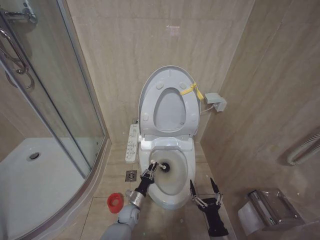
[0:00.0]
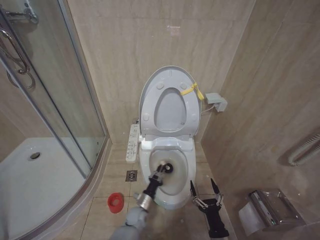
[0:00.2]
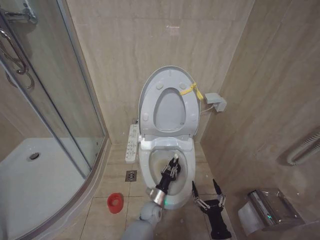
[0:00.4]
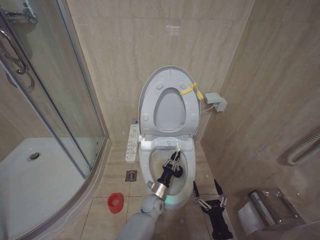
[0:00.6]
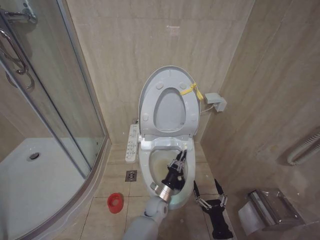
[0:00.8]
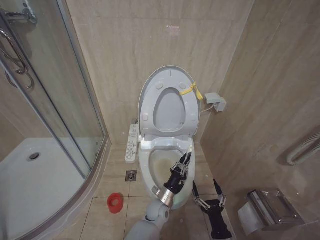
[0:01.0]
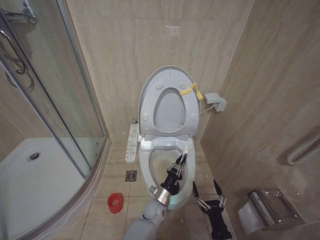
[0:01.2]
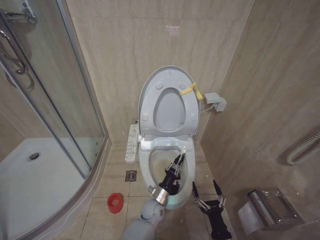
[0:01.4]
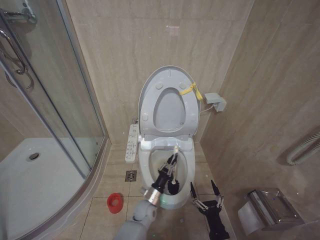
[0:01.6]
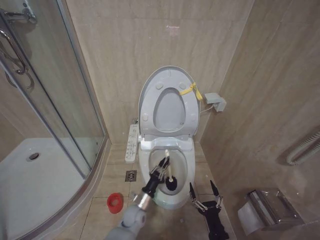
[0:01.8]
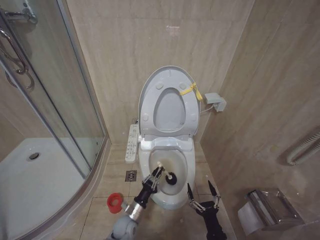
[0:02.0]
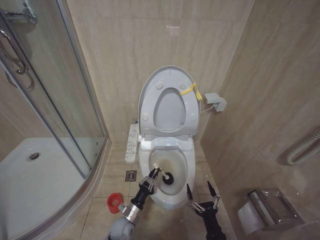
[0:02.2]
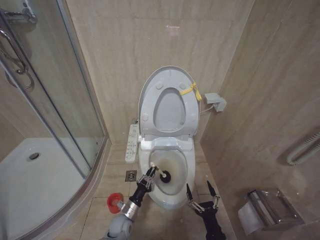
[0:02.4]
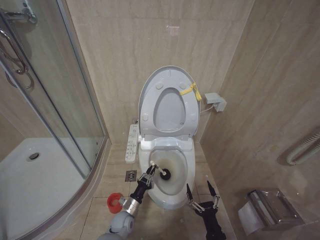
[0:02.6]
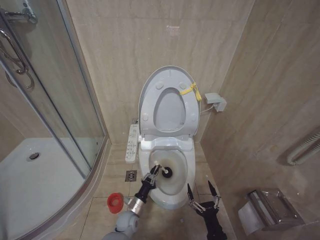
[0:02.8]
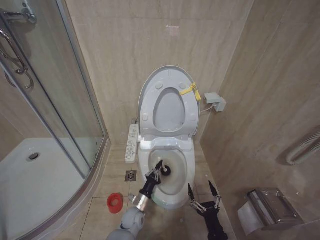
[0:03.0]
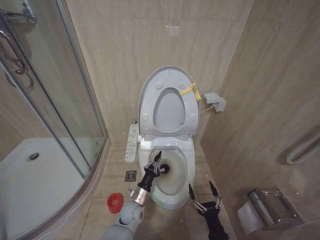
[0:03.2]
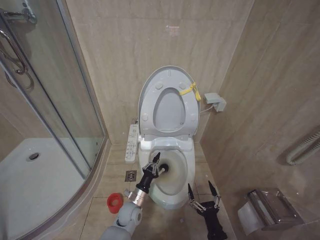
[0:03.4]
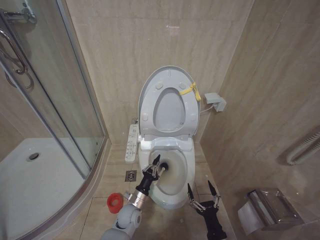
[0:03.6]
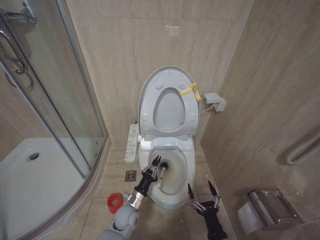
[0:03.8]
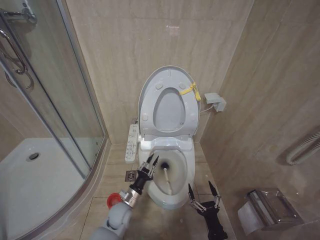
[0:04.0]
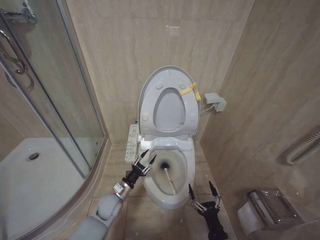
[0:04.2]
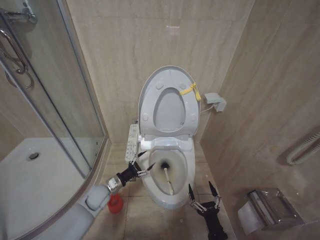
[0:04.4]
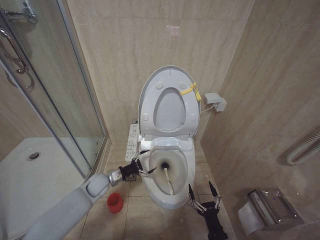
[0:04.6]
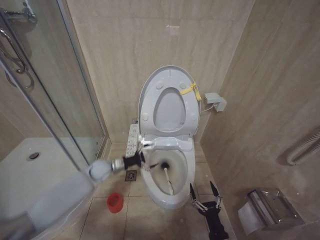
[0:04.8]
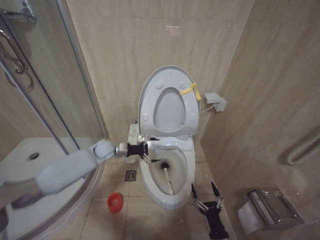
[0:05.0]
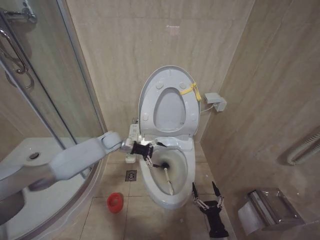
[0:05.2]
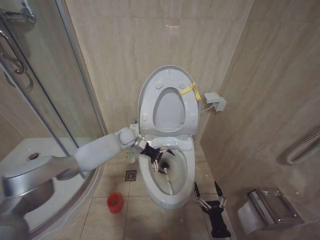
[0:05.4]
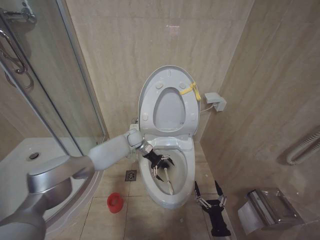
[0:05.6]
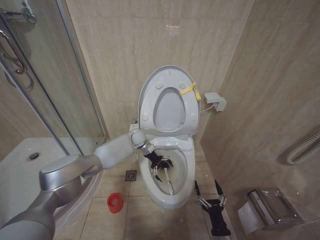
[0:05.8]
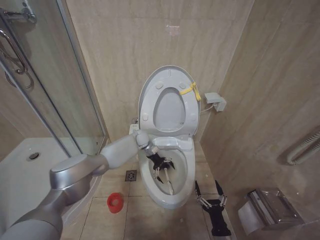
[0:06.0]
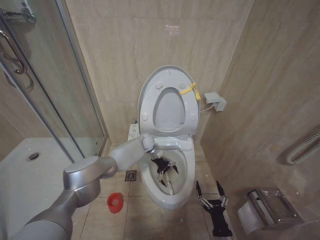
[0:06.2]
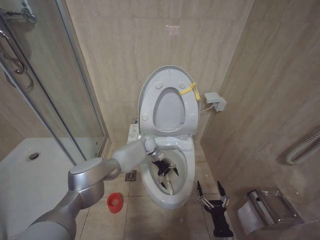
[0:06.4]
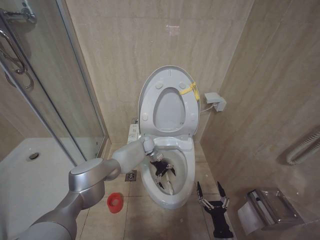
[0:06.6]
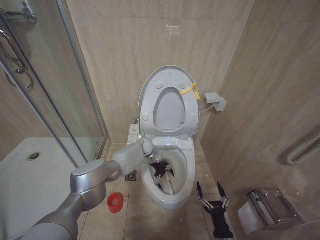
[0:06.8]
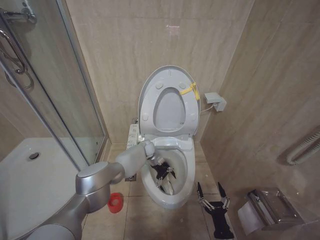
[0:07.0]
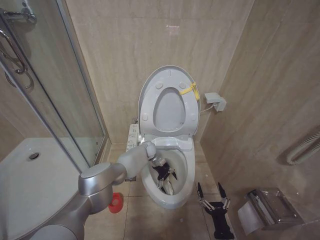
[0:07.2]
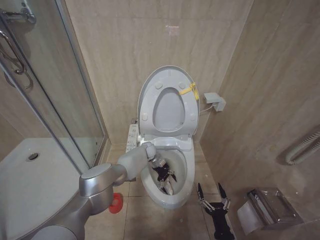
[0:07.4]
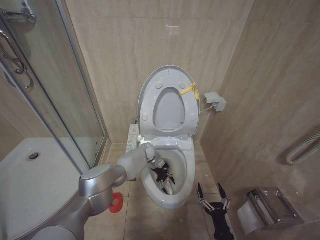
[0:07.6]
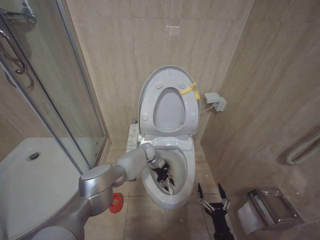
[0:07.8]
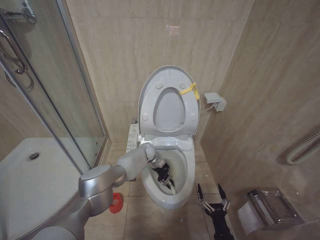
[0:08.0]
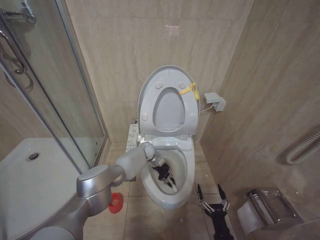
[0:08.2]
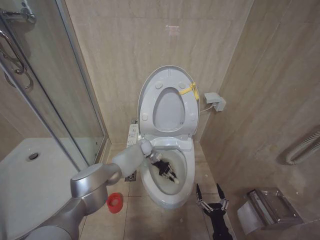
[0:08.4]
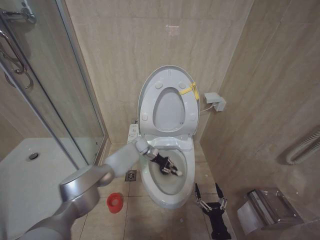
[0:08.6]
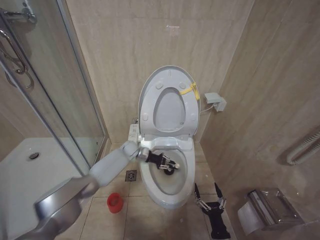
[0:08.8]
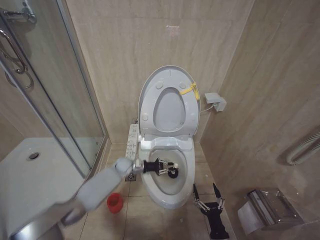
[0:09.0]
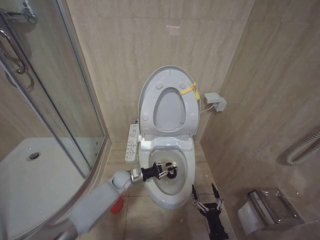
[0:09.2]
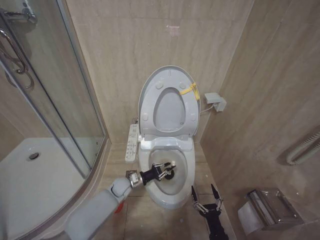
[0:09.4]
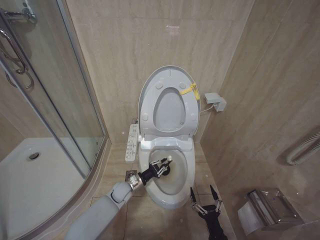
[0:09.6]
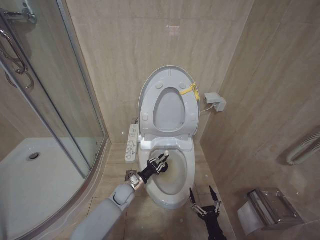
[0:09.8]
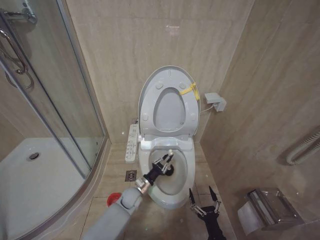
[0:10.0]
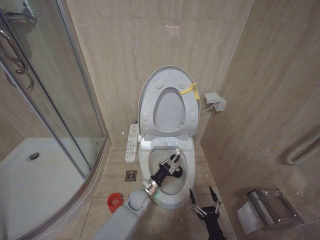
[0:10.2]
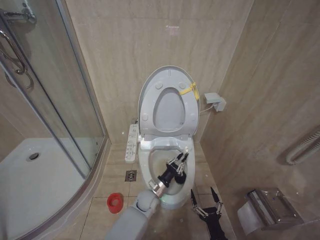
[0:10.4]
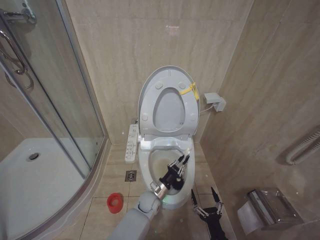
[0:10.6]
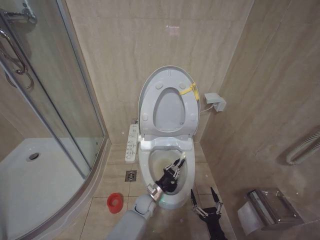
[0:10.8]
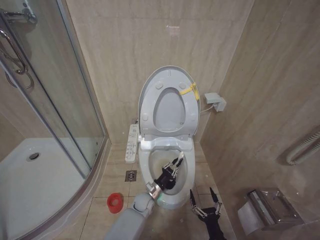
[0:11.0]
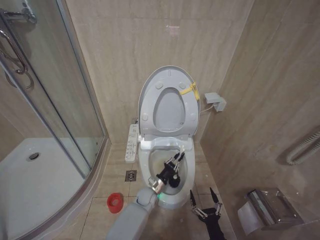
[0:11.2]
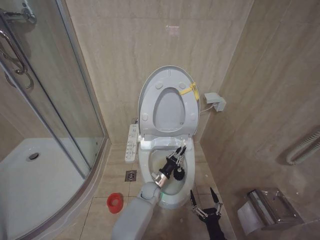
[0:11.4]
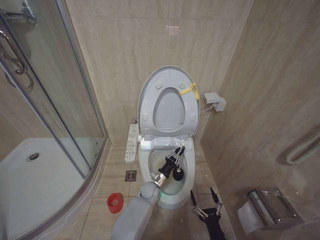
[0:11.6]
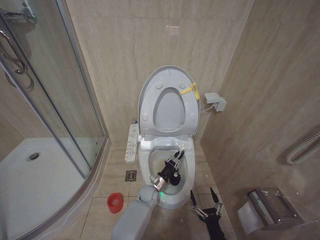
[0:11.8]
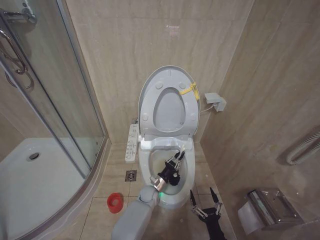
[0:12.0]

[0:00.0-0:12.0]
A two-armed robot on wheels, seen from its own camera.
Task of the whole recording: Open the toilet lid, clean the toilet bowl with a toilet brush, close the toilet lid, and flush.
0:00.0 to 0:01.6: The left gripper travels to the right and upward by approximately 10 cm.
0:01.6 to 0:03.0: The left gripper travels to the left by about 10 cm.
0:03.0 to 0:04.4: The left gripper is displaced upward and to the left by roughly 15 cm.
0:04.4 to 0:06.0: The left gripper heads forward, to the right and upward, covering about 30 cm, and opens its fingers.
0:06.0 to 0:07.6: The left gripper moves downward, roughly 10 cm.
0:07.6 to 0:09.0: The left gripper goes about 10 cm to the left, and closes its fingers.
0:09.0 to 0:10.4: The left gripper goes roughly 20 cm backward, to the right and downward.
0:10.4 to 0:12.0: The left gripper moves about 5 cm.

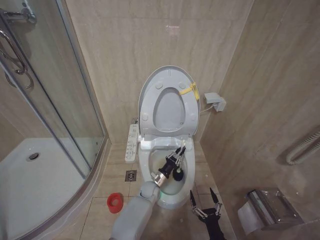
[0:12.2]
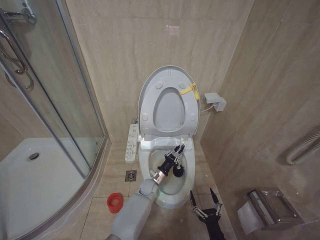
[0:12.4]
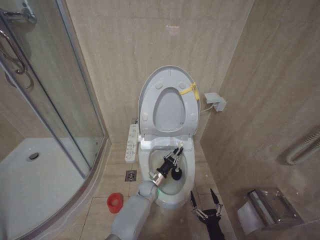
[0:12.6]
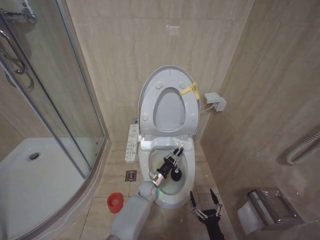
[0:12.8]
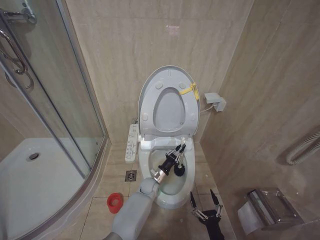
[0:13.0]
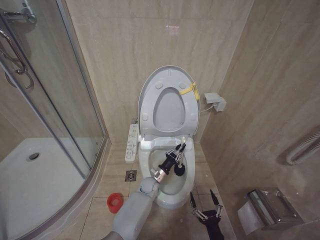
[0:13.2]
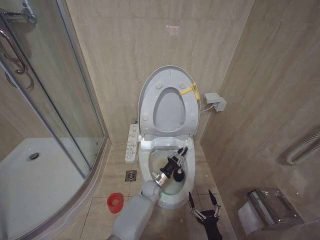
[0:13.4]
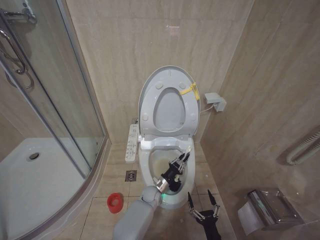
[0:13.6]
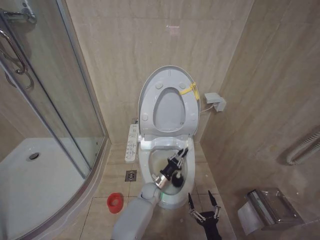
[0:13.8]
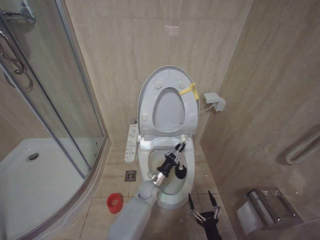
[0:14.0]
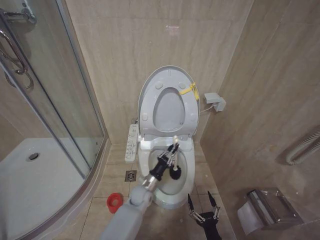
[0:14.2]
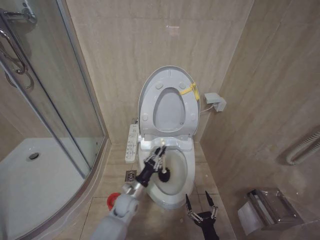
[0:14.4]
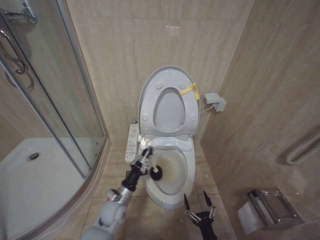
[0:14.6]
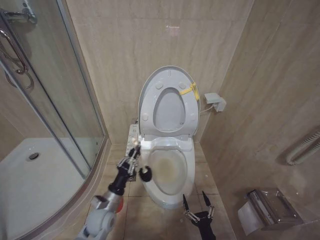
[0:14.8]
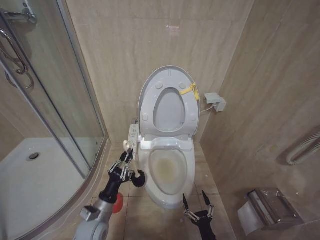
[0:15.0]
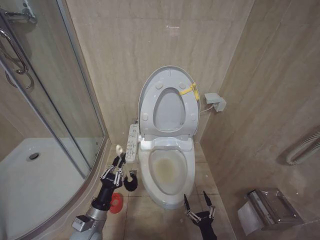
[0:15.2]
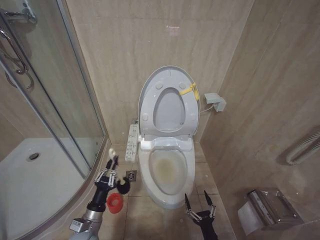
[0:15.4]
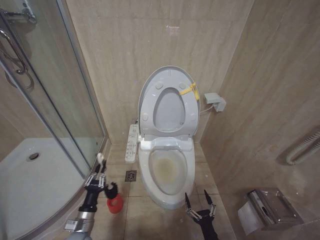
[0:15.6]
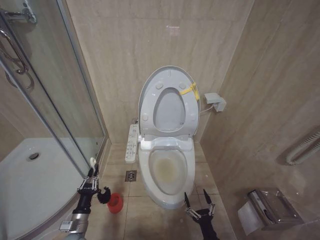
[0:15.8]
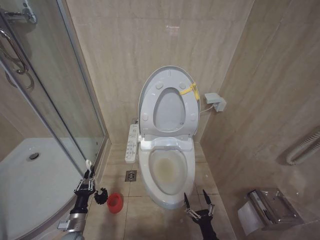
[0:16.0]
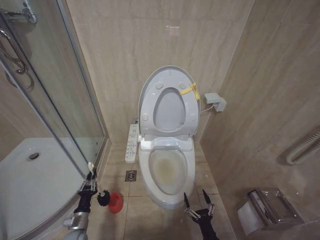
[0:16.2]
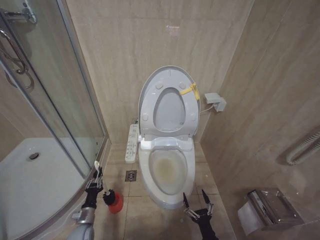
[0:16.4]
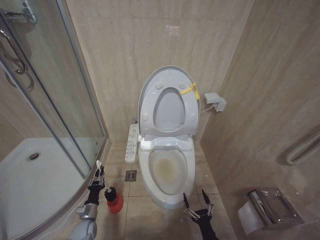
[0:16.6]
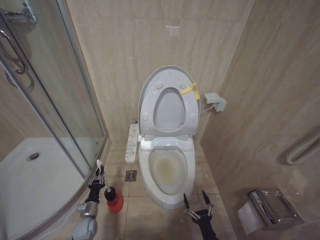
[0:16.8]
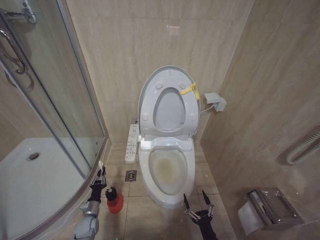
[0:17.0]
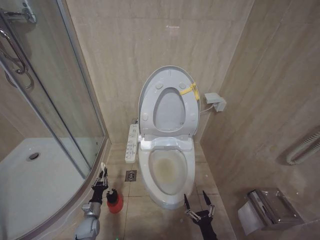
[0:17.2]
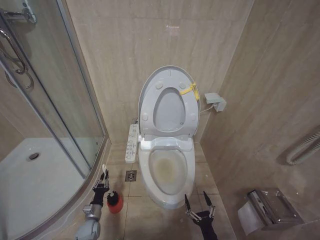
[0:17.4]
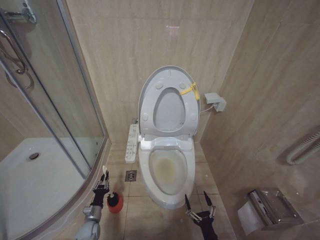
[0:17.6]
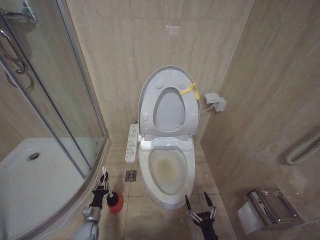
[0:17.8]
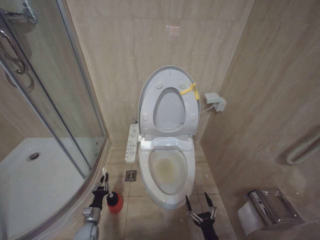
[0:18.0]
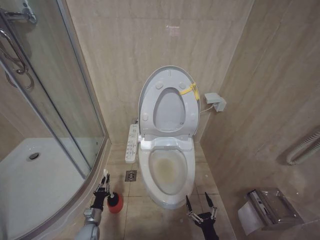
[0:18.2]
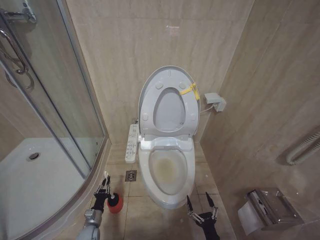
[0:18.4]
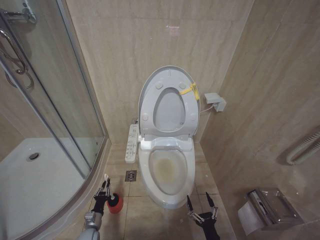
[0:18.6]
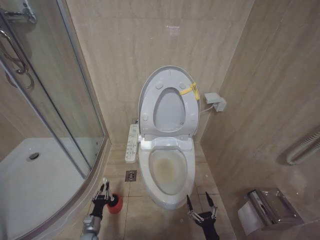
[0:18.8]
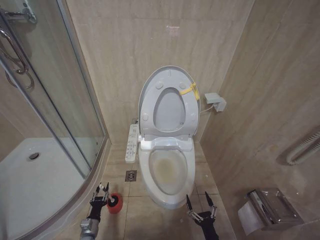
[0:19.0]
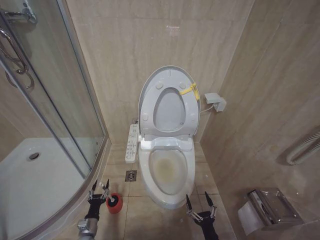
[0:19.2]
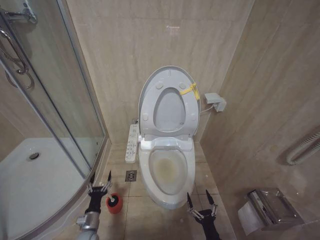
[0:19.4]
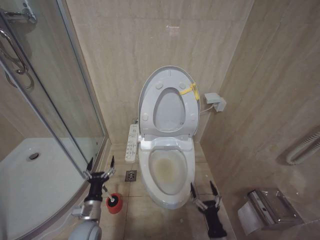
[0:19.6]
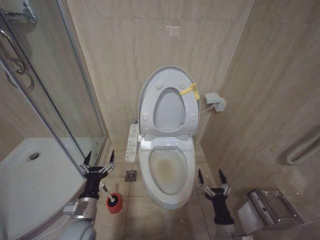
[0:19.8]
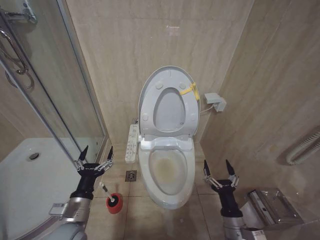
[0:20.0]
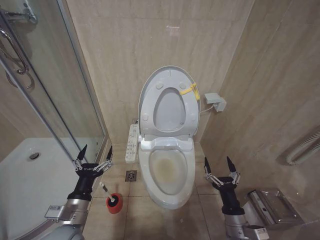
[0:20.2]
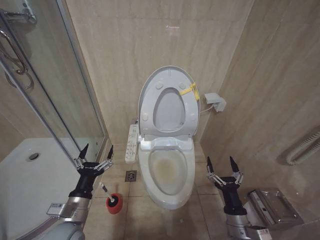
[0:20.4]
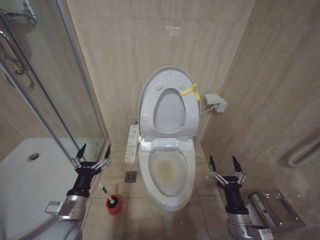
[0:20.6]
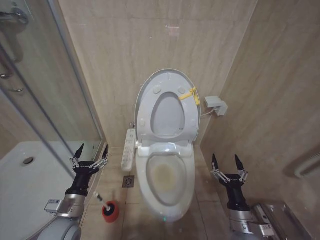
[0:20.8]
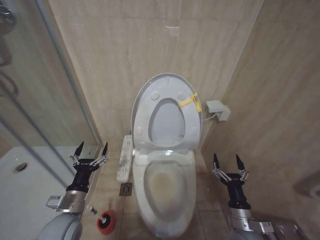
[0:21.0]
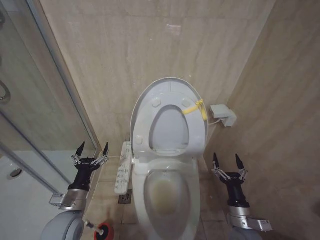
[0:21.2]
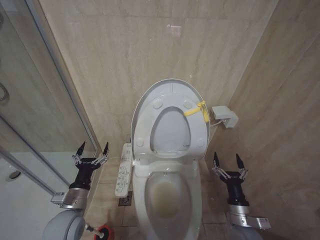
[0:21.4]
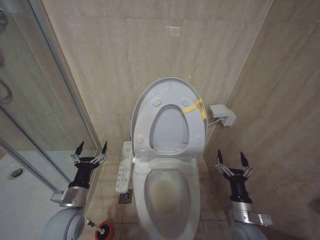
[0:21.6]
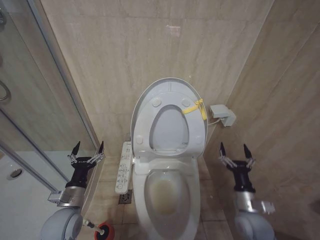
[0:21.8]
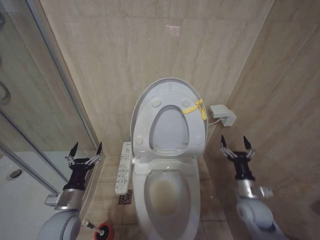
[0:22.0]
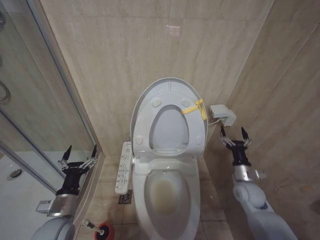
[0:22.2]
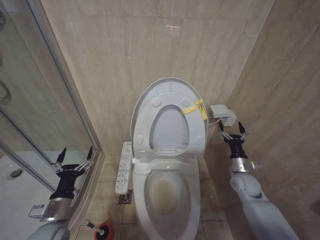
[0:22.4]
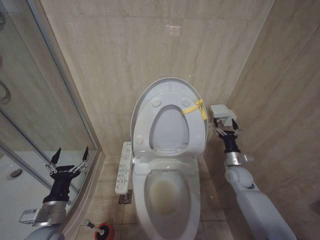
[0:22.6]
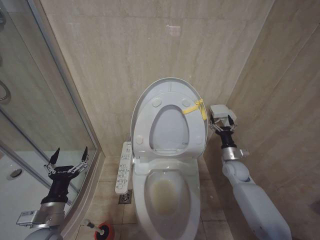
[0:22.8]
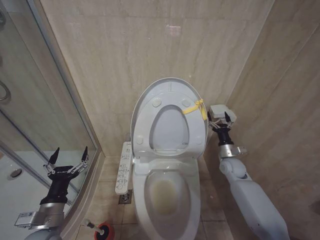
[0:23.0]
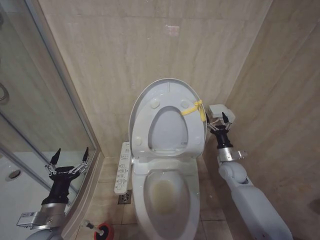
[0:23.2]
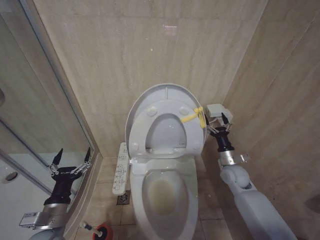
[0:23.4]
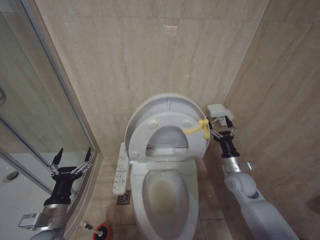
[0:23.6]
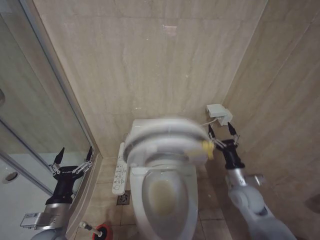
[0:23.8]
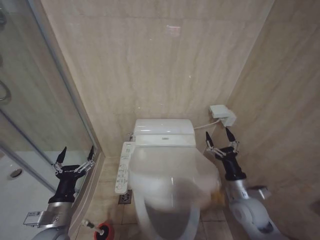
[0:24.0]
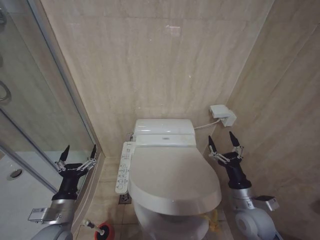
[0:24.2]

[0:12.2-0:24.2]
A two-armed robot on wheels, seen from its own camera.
Task of the whole recording: Open the toilet lid, clean the toilet bowl with a toilet brush, close the toilet lid, and flush.
0:12.2 to 0:13.8: The grippers move only a little.
0:13.8 to 0:15.2: The left gripper moves to the left, backward and upward, about 30 cm.
0:15.2 to 0:16.6: The left gripper goes about 20 cm downward and to the left.
0:16.6 to 0:18.2: The grippers stay close to where they were, moving slightly.
0:18.2 to 0:19.8: The left gripper travels upward by roughly 25 cm, and opens up; the right gripper shifts some 10 cm upward.
0:19.8 to 0:21.2: The right gripper moves upward, about 5 cm, while the left gripper moves approximately 5 cm.
0:21.2 to 0:22.6: The right gripper is displaced forward and to the right by approximately 20 cm.
0:22.6 to 0:24.2: The right gripper shifts approximately 15 cm backward and to the left.
